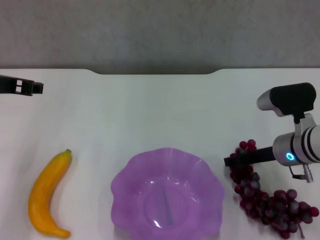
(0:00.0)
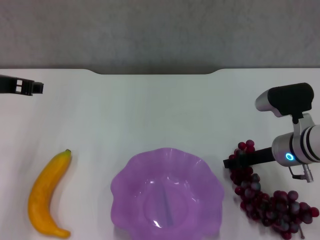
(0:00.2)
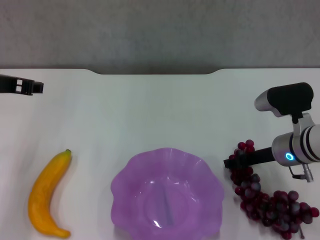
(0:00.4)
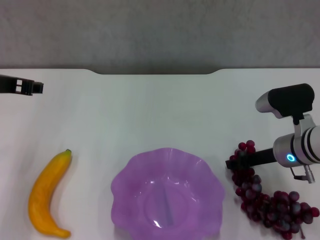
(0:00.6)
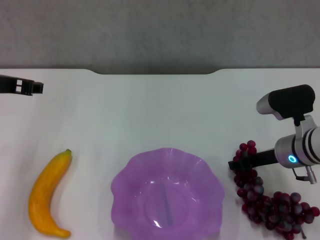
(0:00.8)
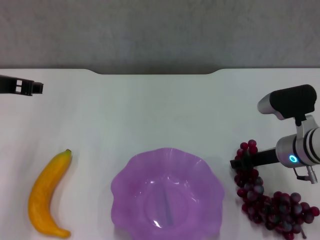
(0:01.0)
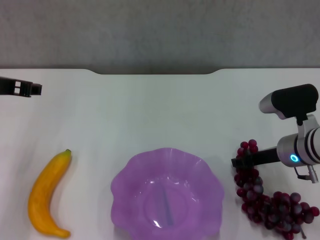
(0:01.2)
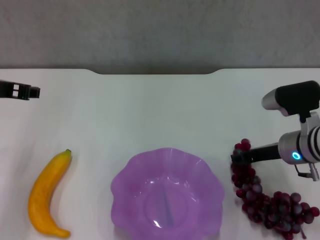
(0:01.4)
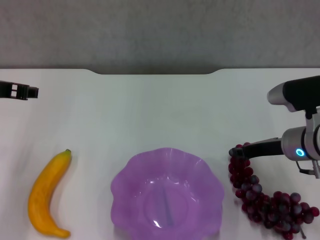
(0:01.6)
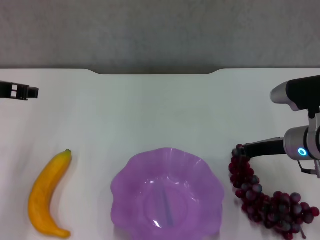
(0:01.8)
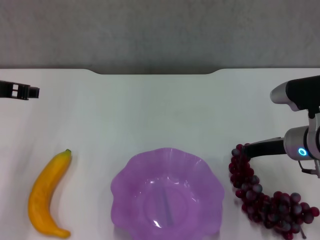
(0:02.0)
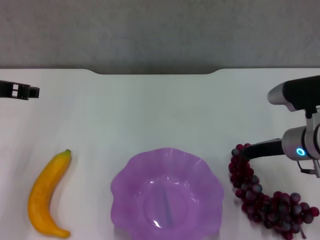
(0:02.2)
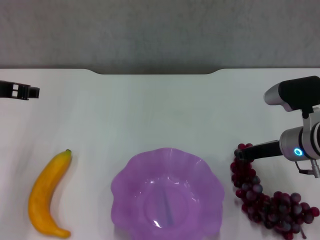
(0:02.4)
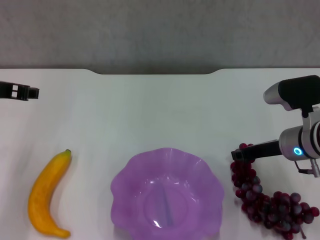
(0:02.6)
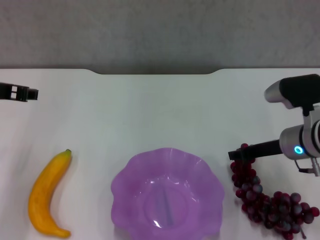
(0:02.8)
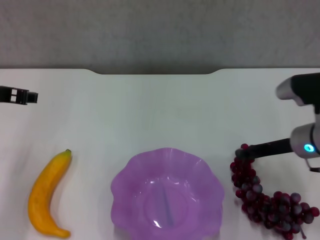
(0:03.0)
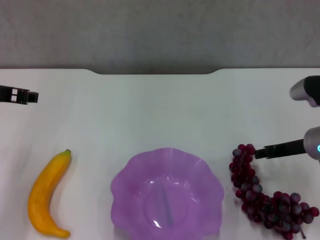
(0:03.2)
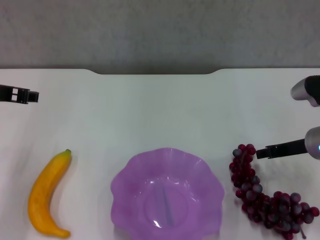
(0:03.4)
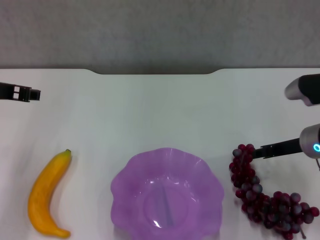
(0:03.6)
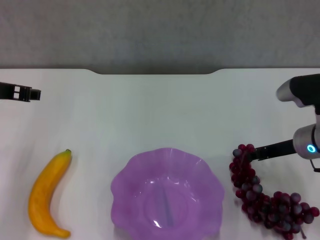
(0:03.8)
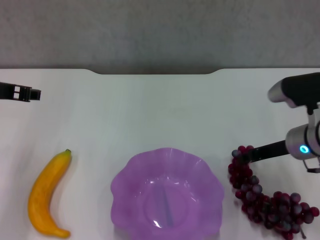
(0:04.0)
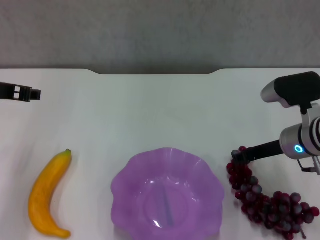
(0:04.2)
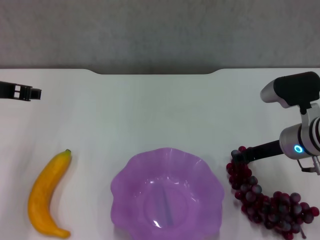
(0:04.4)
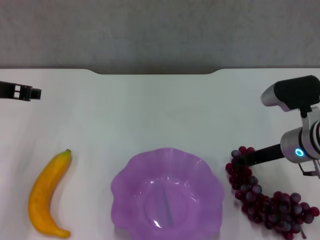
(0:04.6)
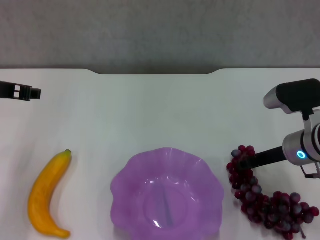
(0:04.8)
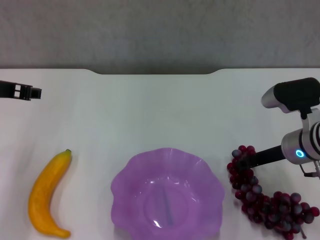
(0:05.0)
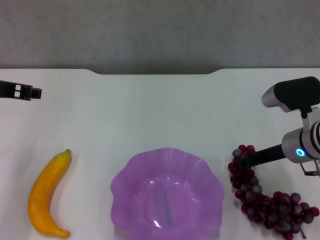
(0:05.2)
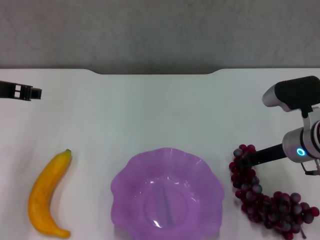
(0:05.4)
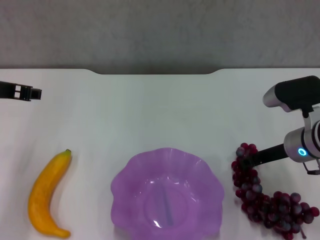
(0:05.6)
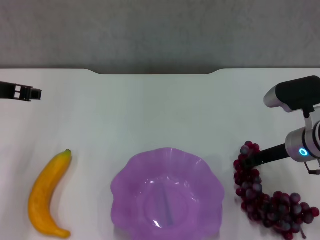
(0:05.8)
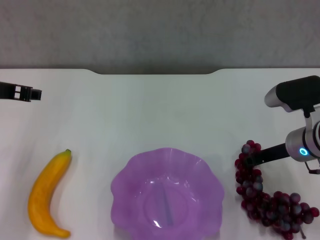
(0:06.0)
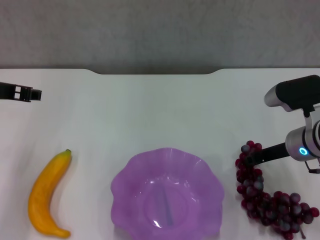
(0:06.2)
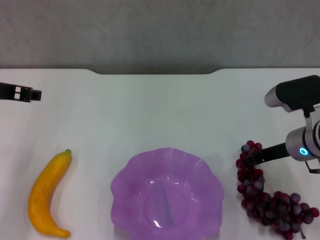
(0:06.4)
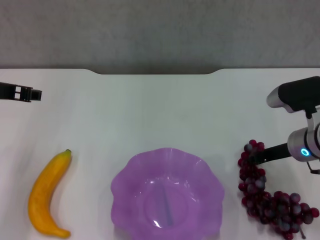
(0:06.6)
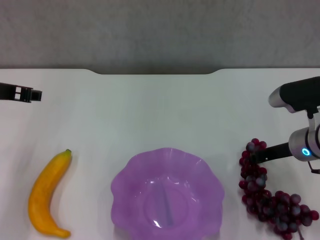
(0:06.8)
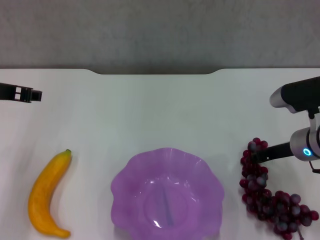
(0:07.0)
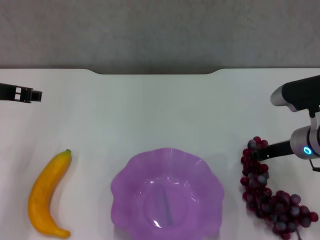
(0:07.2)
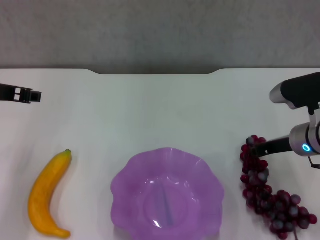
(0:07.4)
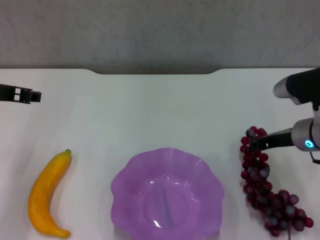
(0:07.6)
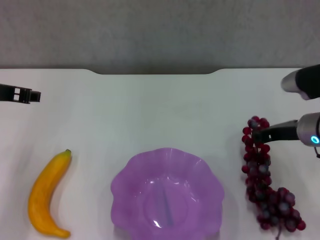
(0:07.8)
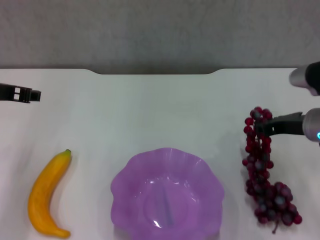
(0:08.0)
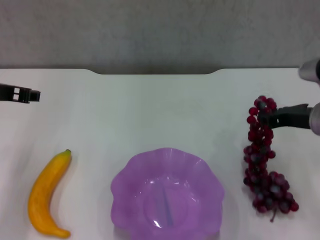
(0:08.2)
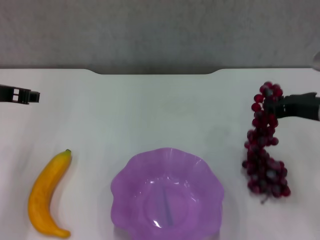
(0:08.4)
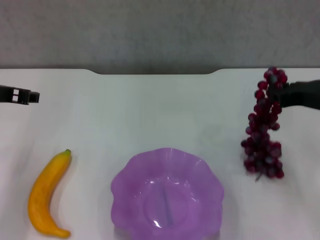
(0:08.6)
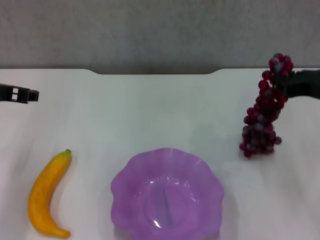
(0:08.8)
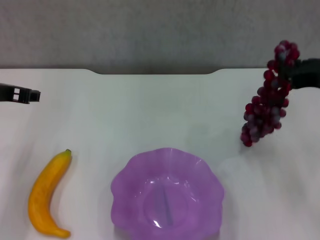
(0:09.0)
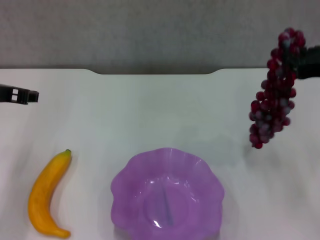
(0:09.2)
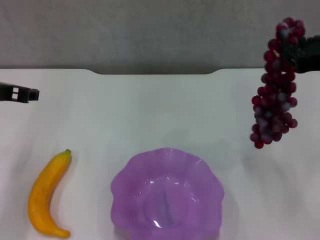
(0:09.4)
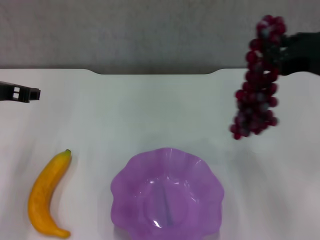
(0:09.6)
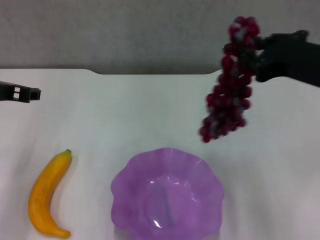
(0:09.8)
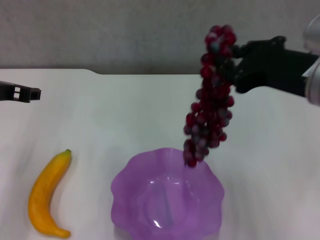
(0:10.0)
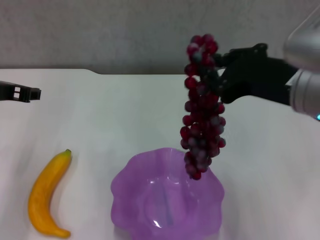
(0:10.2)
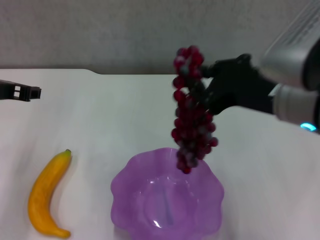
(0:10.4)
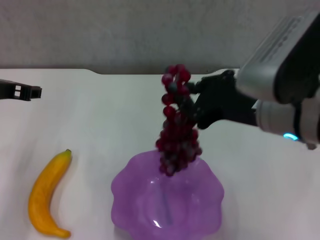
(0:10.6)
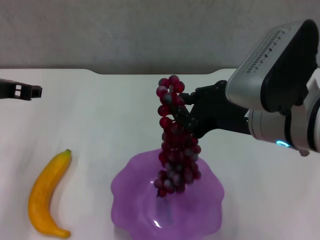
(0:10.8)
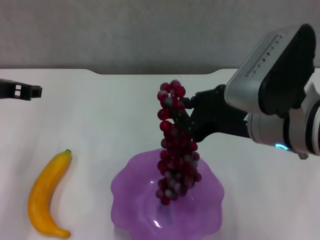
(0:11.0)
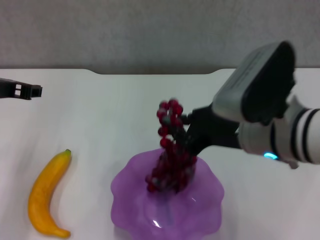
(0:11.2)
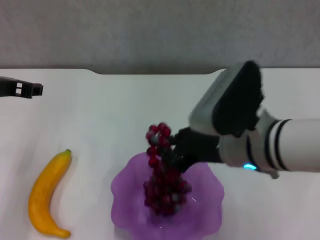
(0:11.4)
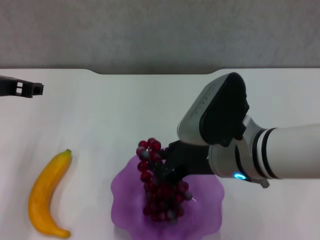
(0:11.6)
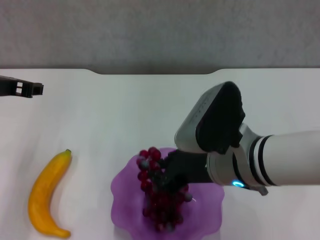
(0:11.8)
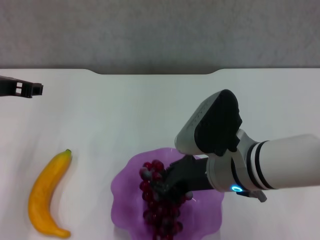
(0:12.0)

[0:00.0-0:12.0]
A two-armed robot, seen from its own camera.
Step, 0:00.0 to 0:07.0: Grasp the grape with right gripper.
0:00.0 to 0:01.6: The right gripper closes its fingers.
0:01.6 to 0:03.0: The right gripper closes, then opens again.
0:03.0 to 0:04.4: The grippers make only small movements.
0:04.4 to 0:06.0: Both grippers stay put.
0:06.0 to 0:07.6: The right gripper closes its fingers.
0:07.6 to 0:09.0: The right gripper is displaced upward by roughly 10 cm.
0:09.0 to 0:10.4: The right gripper shifts approximately 10 cm to the left and backward.
0:10.4 to 0:12.0: The right gripper travels downward and to the left by some 10 cm.

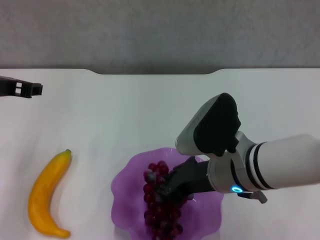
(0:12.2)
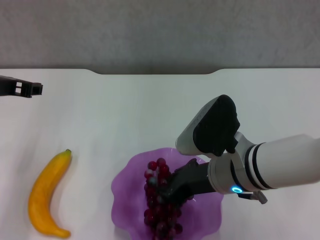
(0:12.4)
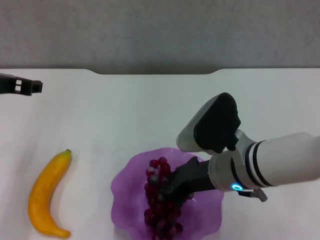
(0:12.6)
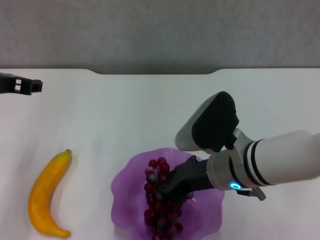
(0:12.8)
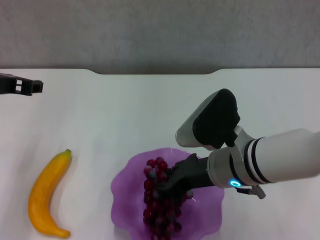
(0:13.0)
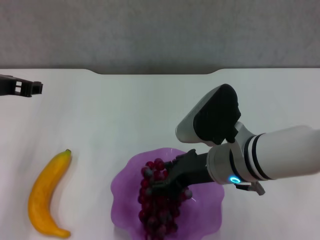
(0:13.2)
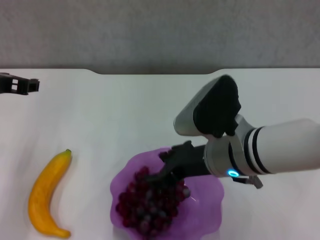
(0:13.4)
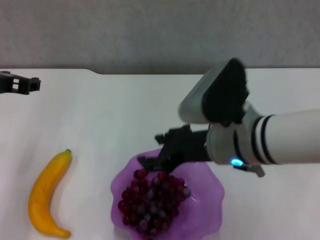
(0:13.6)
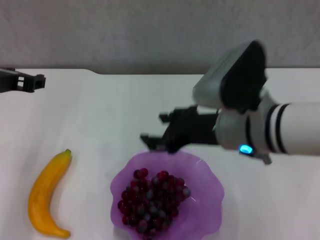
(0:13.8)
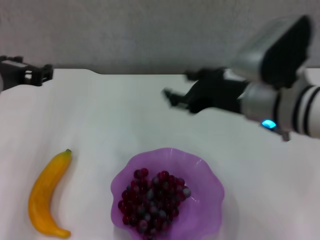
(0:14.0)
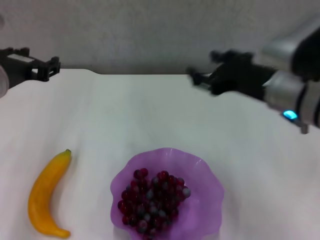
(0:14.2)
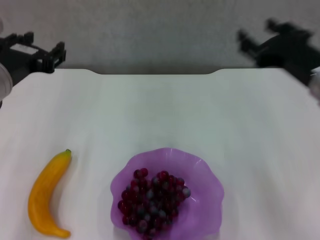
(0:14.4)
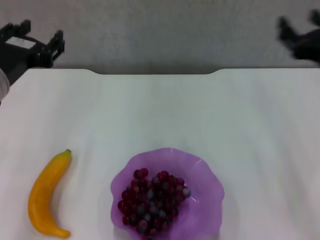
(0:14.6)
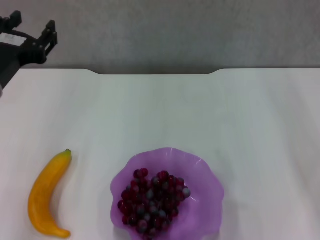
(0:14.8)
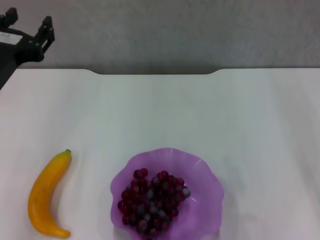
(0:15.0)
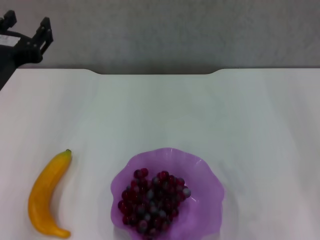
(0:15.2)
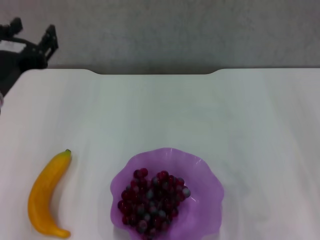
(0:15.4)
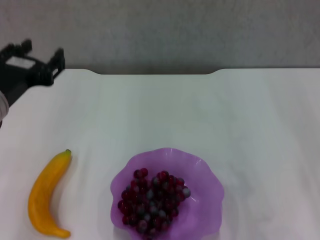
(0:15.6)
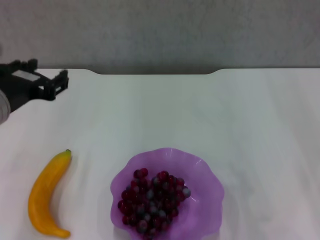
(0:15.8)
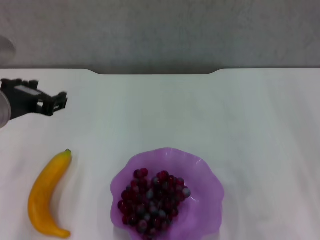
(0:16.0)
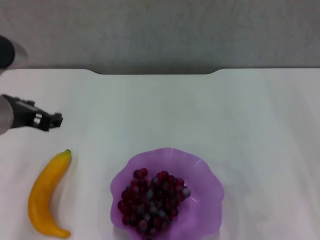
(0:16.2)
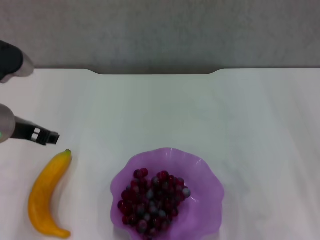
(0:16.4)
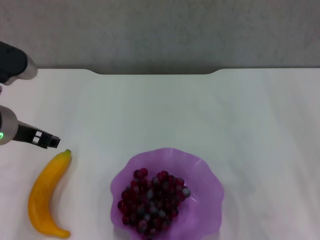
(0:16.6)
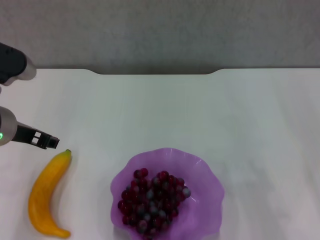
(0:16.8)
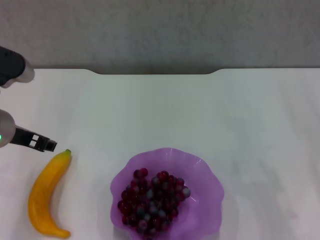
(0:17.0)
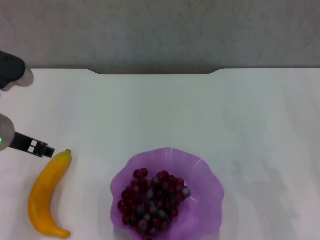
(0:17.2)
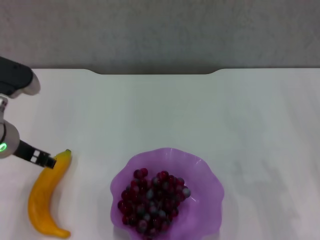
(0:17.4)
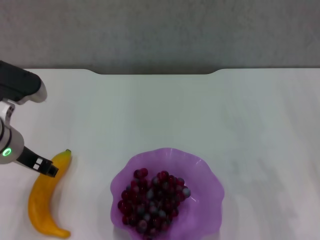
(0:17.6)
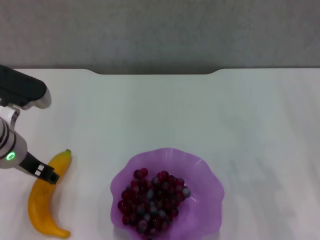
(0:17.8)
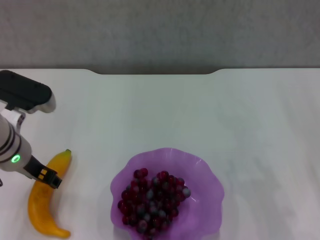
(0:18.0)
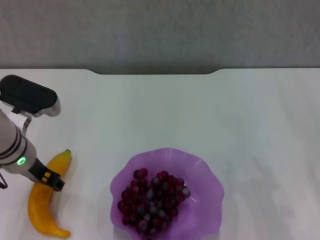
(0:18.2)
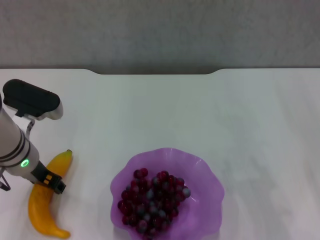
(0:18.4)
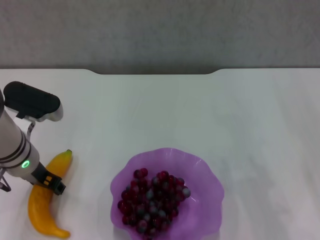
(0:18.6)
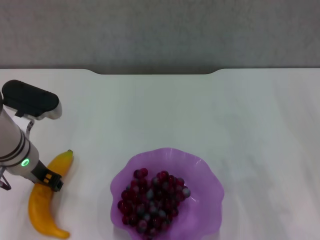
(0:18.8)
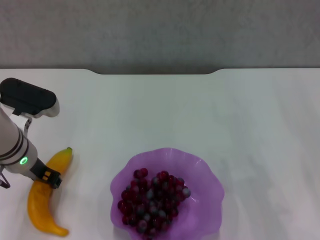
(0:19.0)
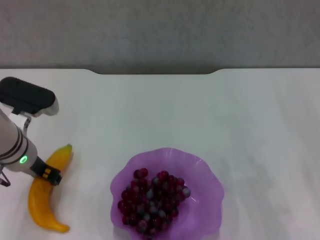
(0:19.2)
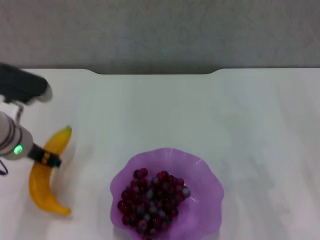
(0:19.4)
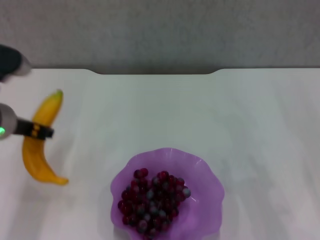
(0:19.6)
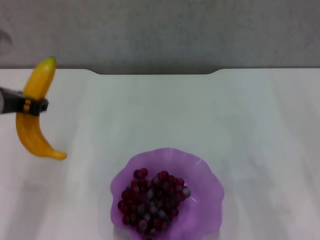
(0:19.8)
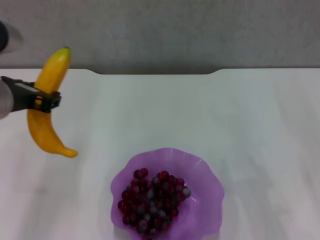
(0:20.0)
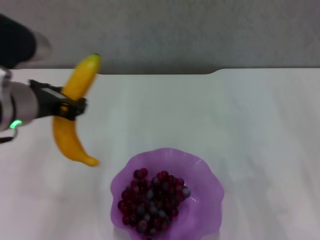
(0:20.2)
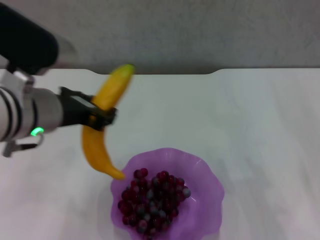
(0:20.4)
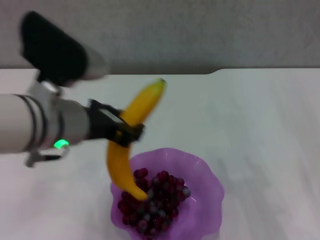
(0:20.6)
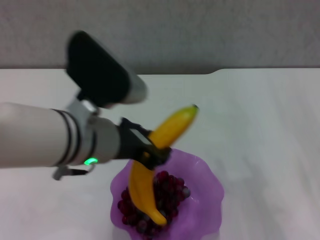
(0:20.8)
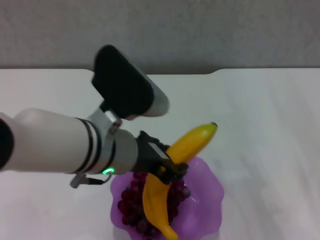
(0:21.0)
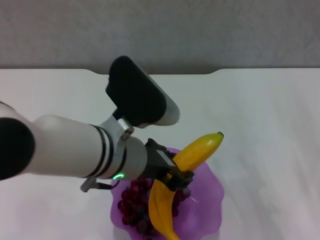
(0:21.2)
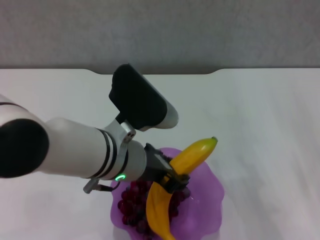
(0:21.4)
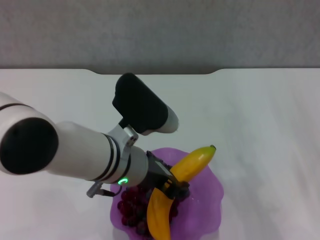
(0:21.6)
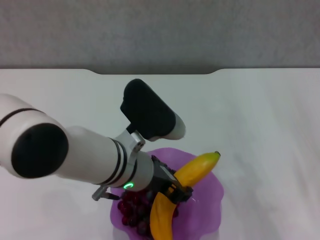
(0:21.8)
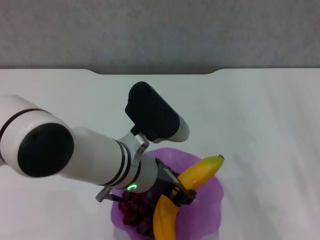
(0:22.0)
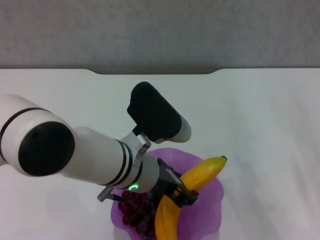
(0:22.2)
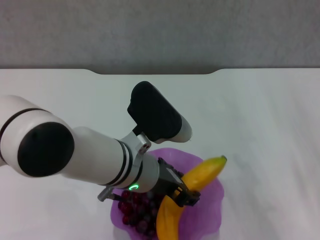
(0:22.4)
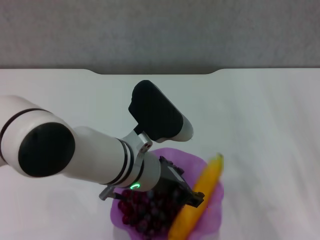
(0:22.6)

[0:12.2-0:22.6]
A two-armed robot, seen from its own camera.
Step, 0:14.0 to 0:18.8: Grasp the banana with left gripper.
0:12.2 to 0:13.6: The right gripper opens up.
0:13.6 to 0:15.2: The right gripper moves to the right, some 20 cm. Meanwhile the left gripper travels backward by about 5 cm.
0:15.2 to 0:16.6: The left gripper ends up some 5 cm from where it was.
0:16.6 to 0:18.2: The left gripper travels downward by some 5 cm.
0:18.2 to 0:19.6: The left gripper heads upward, covering approximately 5 cm, and closes its fingers.
0:19.6 to 0:21.2: The left gripper shifts roughly 15 cm to the right.
0:21.2 to 0:22.6: The grippers stay close to where they were, moving slightly.
